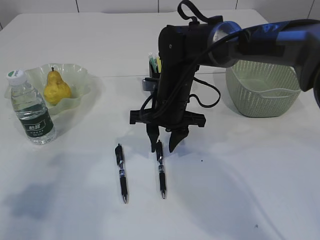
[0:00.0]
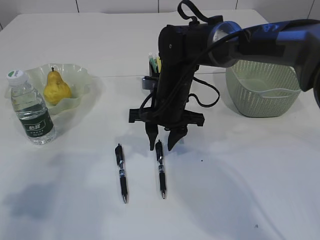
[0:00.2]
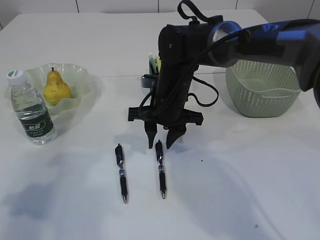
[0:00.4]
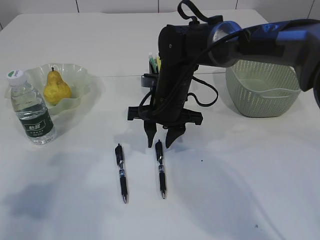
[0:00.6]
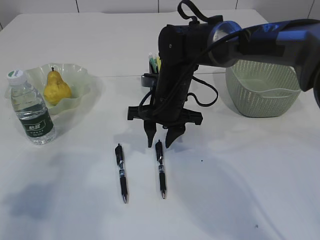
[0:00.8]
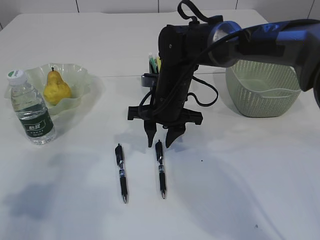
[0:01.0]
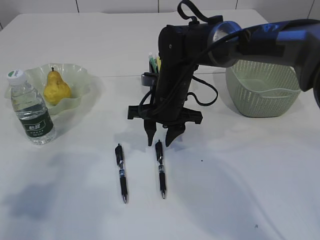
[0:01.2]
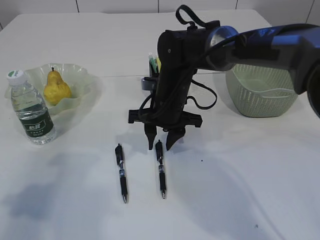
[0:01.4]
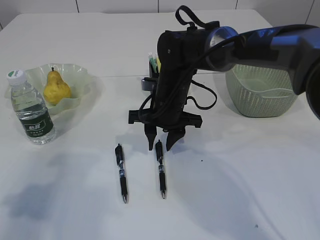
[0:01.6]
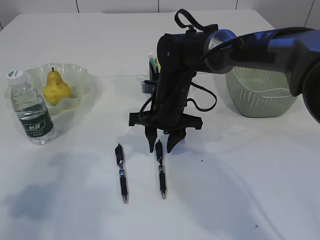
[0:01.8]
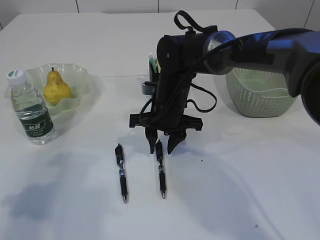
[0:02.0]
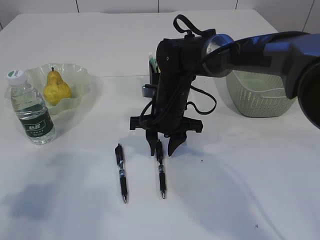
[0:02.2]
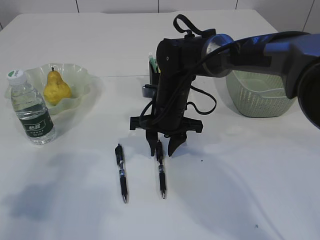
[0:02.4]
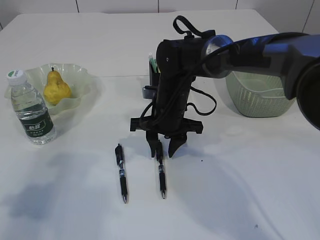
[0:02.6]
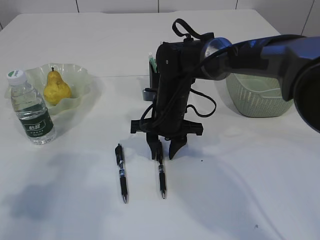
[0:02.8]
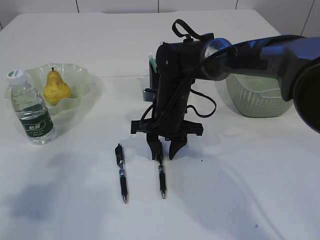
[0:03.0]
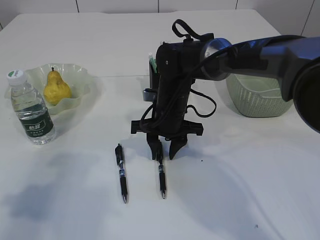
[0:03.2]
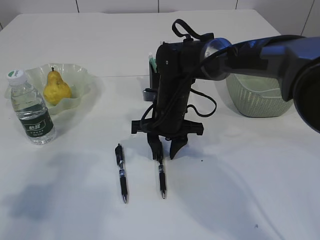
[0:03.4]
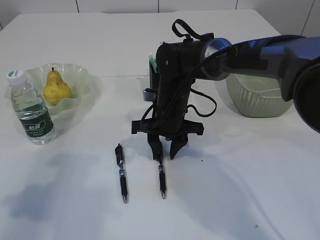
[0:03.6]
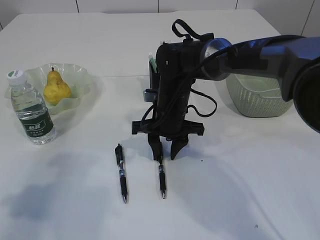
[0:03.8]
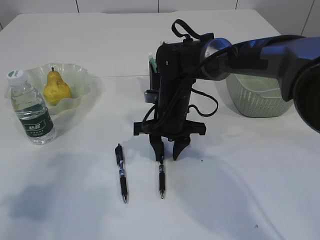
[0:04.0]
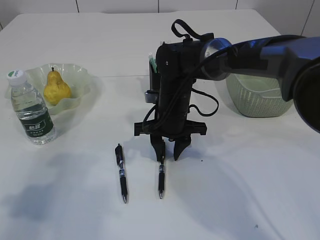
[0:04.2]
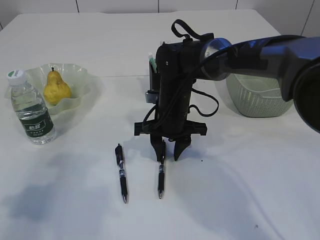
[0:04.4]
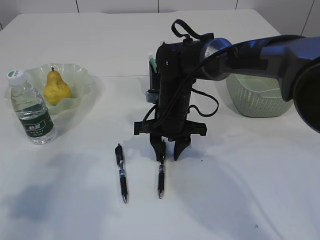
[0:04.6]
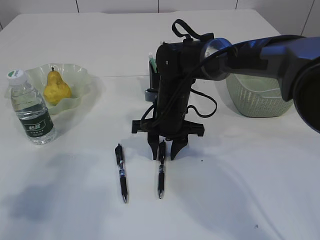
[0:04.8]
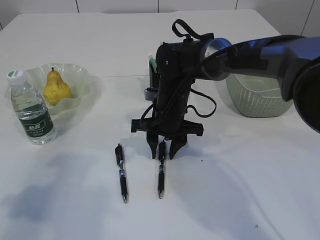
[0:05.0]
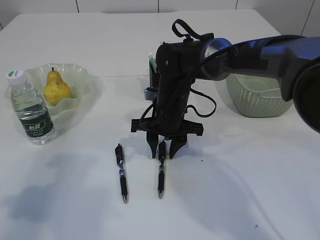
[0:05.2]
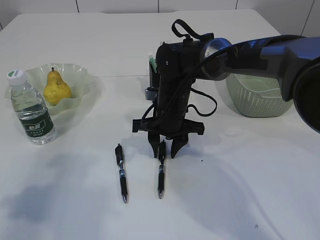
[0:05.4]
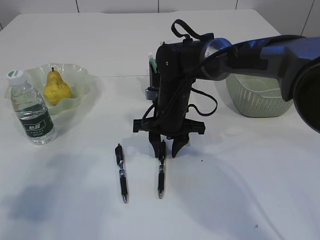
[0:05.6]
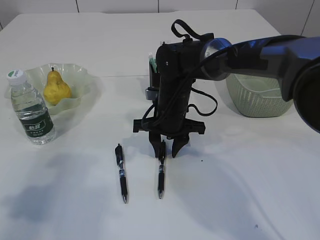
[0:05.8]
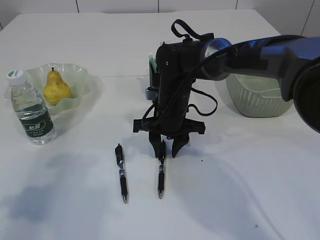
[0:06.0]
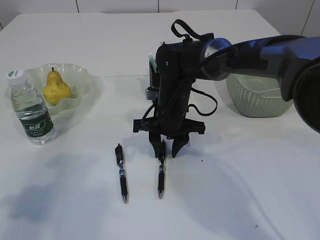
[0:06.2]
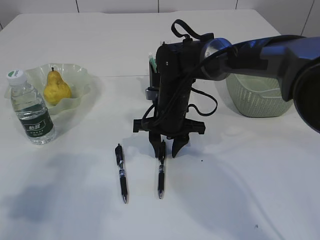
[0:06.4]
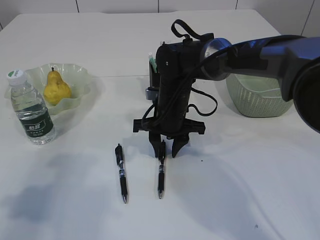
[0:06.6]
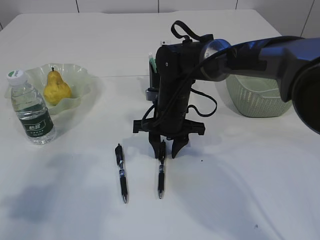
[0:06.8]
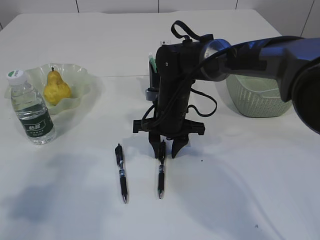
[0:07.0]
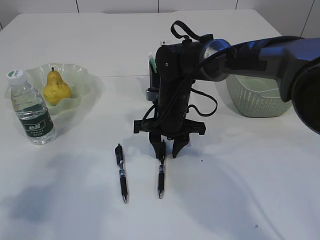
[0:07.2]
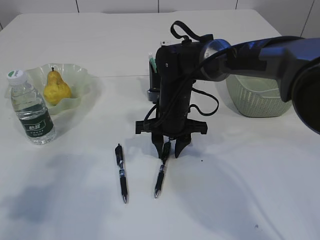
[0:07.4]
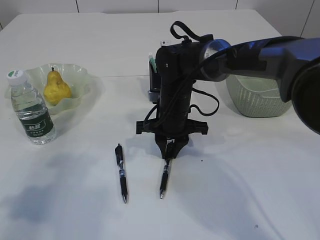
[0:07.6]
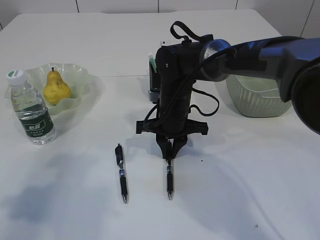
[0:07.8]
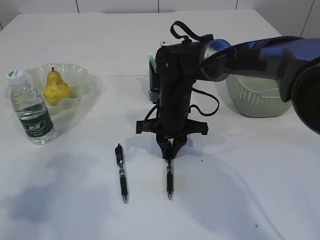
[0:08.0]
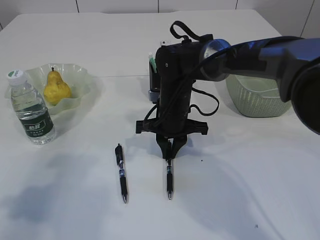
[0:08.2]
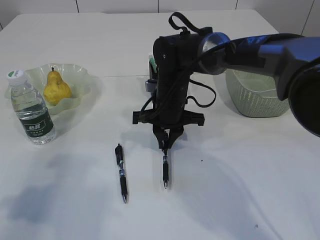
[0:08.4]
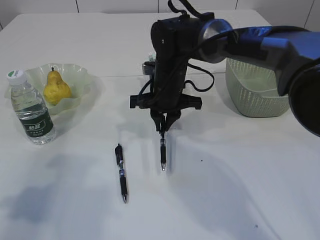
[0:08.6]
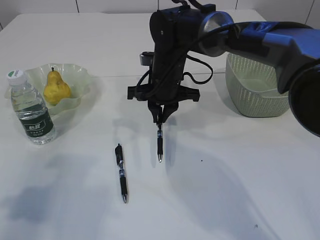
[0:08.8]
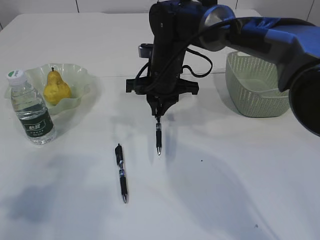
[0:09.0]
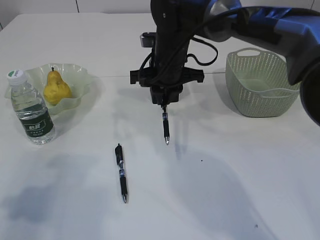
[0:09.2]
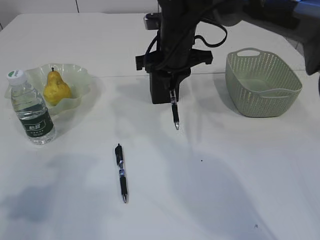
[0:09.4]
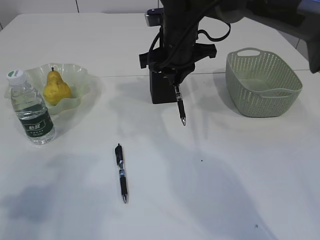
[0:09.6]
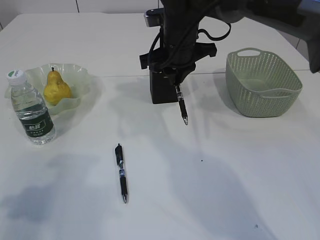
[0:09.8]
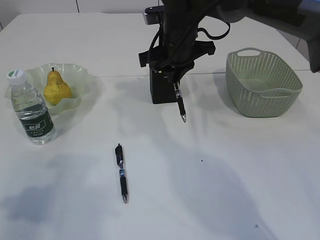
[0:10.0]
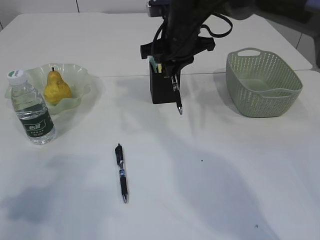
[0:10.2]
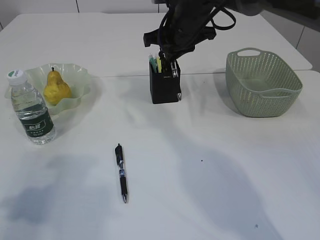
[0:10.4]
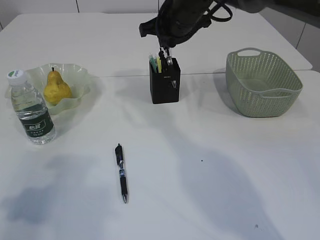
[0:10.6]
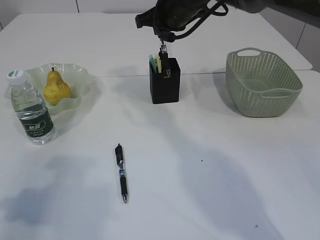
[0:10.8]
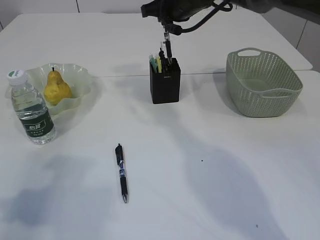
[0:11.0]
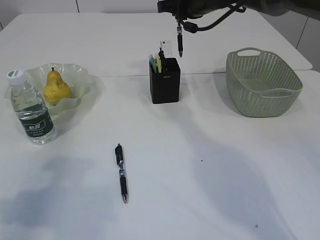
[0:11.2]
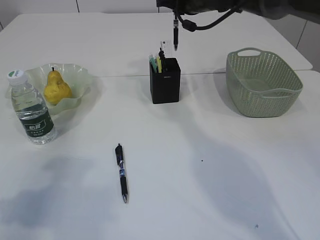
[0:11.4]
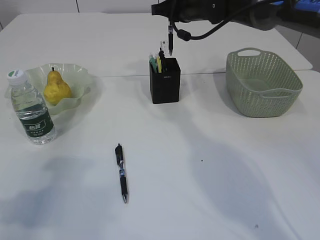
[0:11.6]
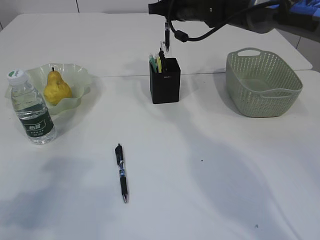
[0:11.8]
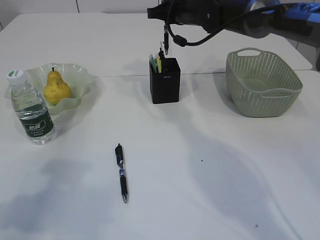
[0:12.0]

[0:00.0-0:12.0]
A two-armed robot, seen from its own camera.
Step, 0:00.0 to 0:09.6: Pick up the pen with right arm.
0:00.0 to 0:01.6: Both grippers stay put.
0:01.6 to 0:03.0: There are only small adjustments of the grippers.
0:03.0 to 0:06.0: Both grippers stay about where they are.
0:06.0 to 0:07.6: Both grippers stay put.
0:07.6 to 0:09.0: The right gripper travels upward by about 5 cm.
0:09.0 to 0:10.4: The right gripper shifts roughly 5 cm upward.
0:10.4 to 0:12.0: The right gripper moves forward, some 5 cm.

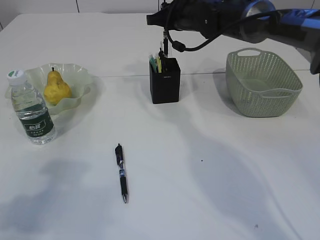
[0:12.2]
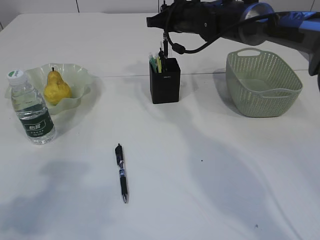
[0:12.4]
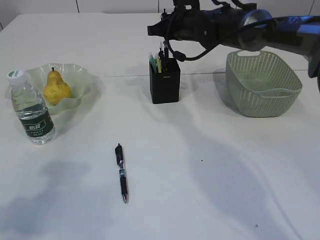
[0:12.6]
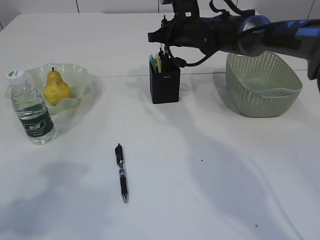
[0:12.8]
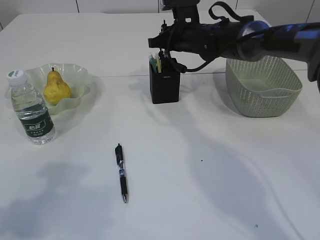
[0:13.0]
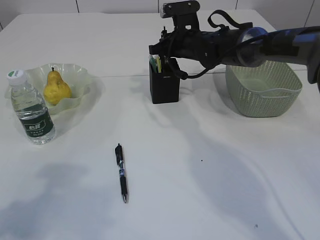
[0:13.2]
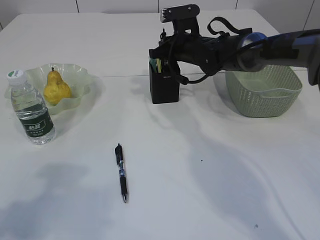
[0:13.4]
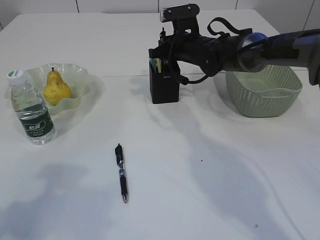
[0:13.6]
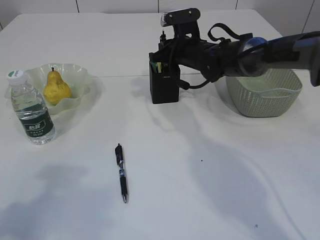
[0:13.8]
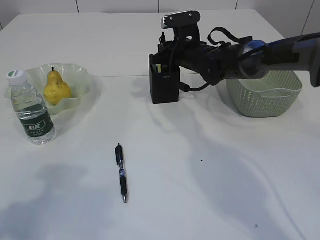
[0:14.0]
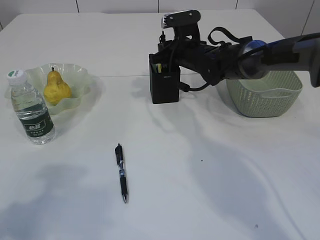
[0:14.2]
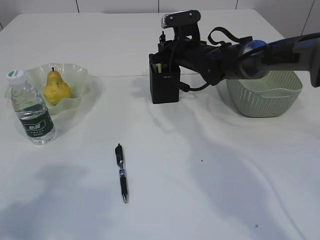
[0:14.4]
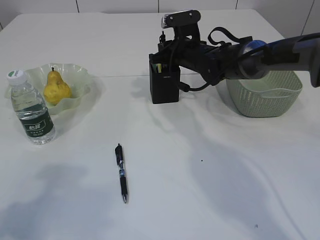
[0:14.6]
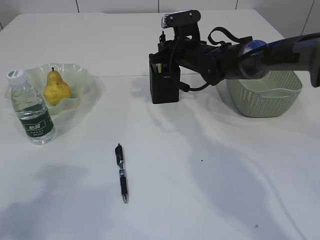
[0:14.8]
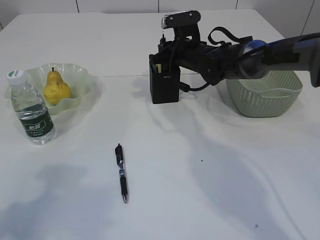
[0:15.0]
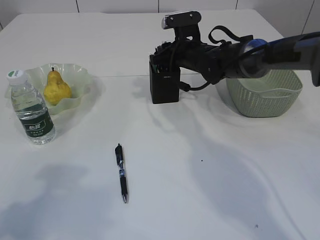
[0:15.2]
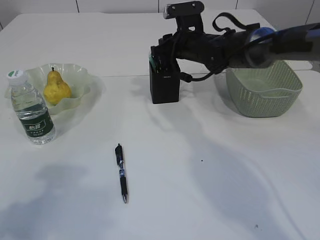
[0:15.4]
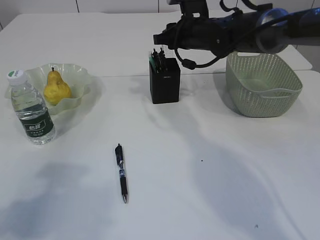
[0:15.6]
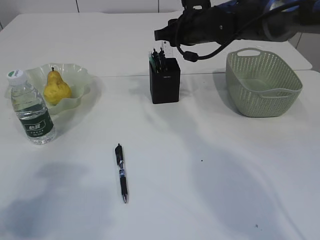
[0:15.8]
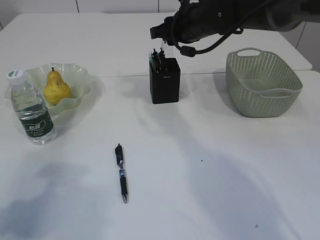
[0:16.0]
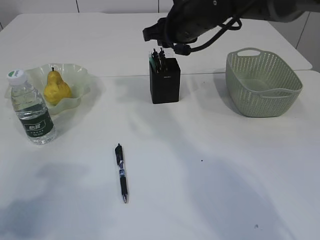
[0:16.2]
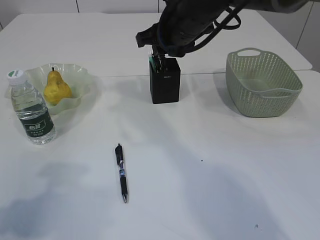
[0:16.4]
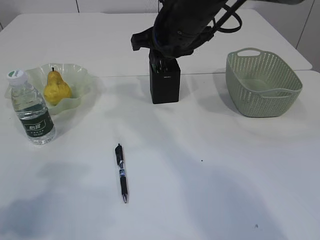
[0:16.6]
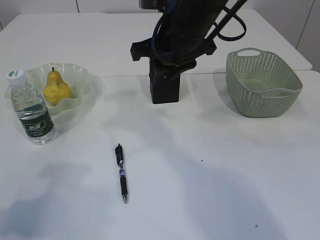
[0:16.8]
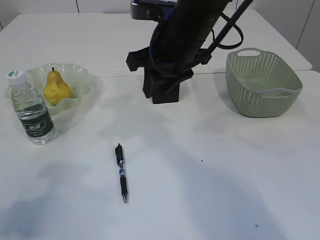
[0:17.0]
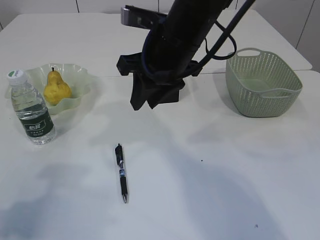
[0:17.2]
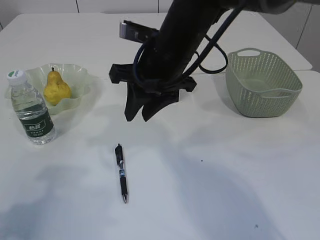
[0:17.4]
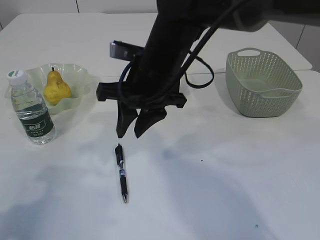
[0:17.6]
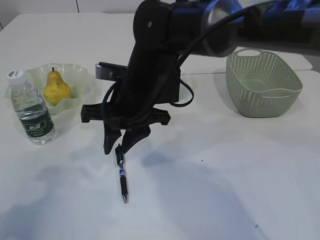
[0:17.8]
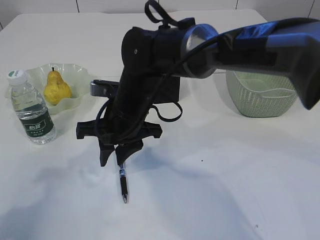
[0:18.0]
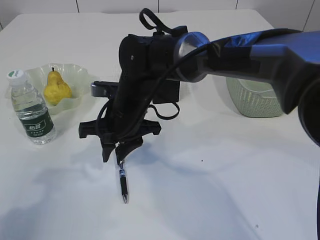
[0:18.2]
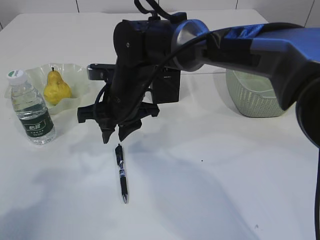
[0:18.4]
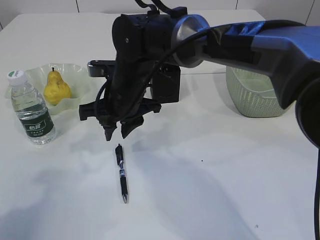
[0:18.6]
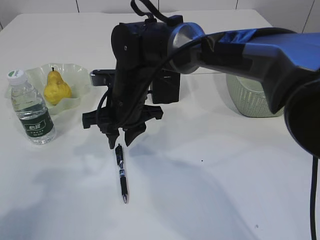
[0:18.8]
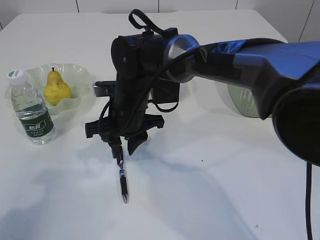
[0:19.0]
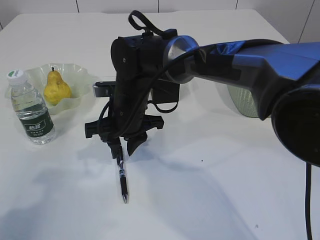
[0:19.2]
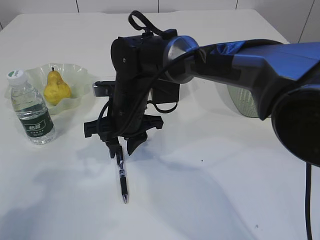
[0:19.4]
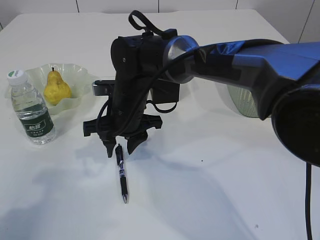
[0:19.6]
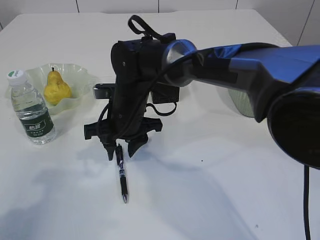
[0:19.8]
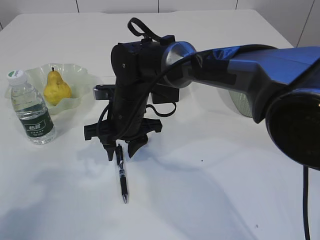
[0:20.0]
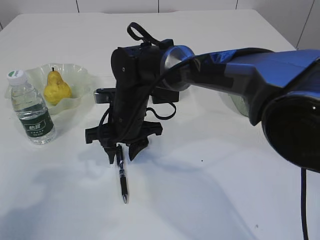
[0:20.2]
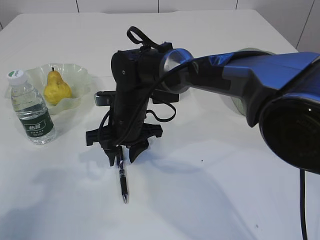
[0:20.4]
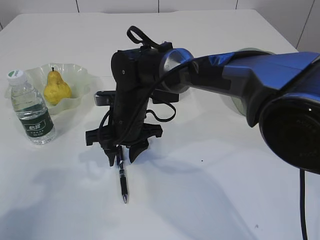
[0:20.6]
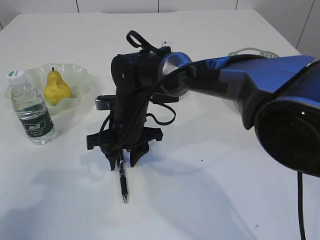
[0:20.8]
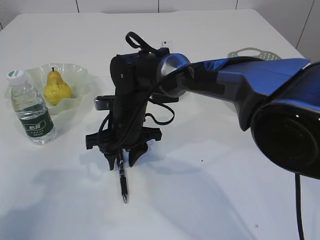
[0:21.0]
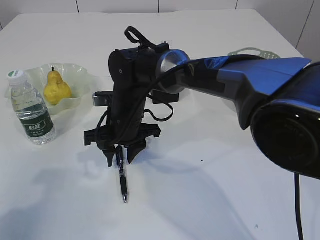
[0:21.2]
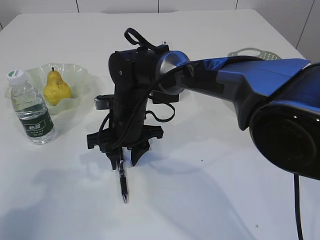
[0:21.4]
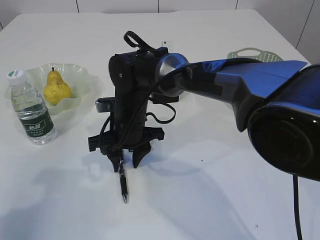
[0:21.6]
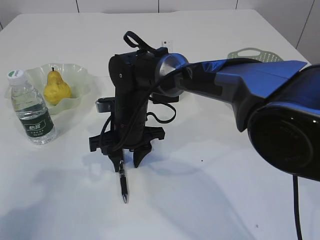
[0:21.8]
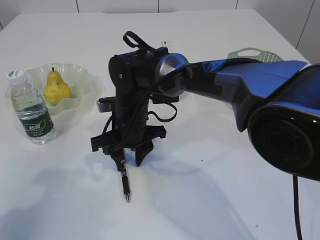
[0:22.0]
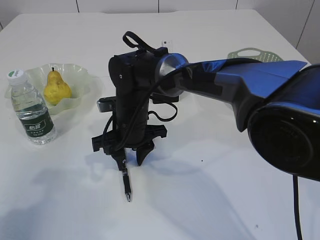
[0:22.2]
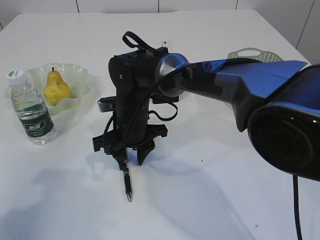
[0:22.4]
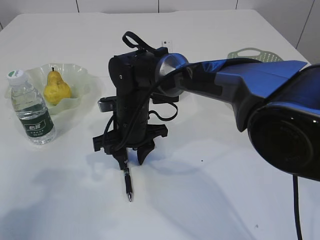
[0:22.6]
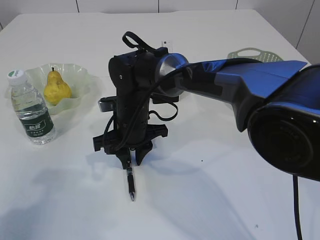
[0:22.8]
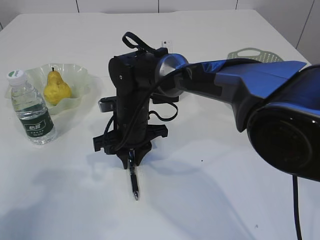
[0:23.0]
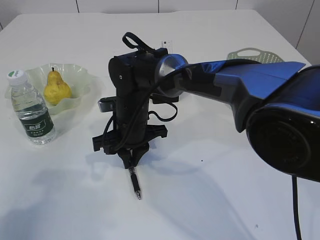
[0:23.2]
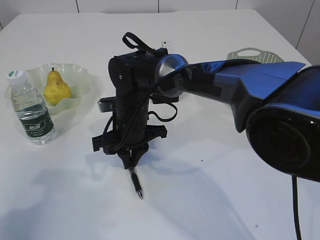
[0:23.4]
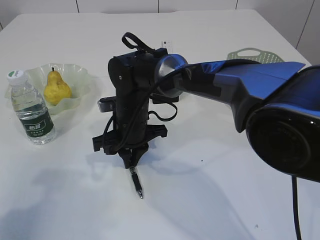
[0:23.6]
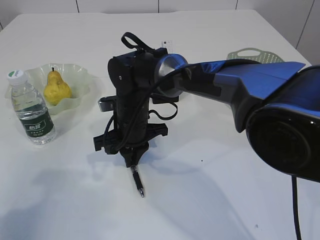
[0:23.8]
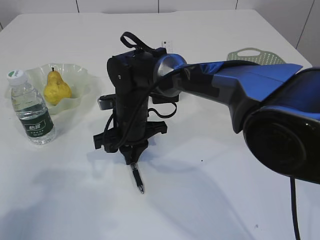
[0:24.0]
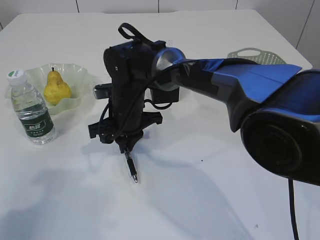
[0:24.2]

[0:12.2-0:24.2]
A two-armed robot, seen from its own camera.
Step, 0:12.2 to 0:16.0: Place the pen into the pen holder.
0:12.2 to 0:13.8: The right gripper moves downward, some 5 cm.
0:13.8 to 0:15.2: Neither gripper changes place.
0:15.2 to 0:16.6: The right gripper goes roughly 15 cm upward and backward.
0:16.6 to 0:18.2: The right gripper travels downward and to the left by approximately 15 cm.
0:18.2 to 0:22.6: The grippers make only small movements.
0:22.6 to 0:24.2: The right gripper closes.
